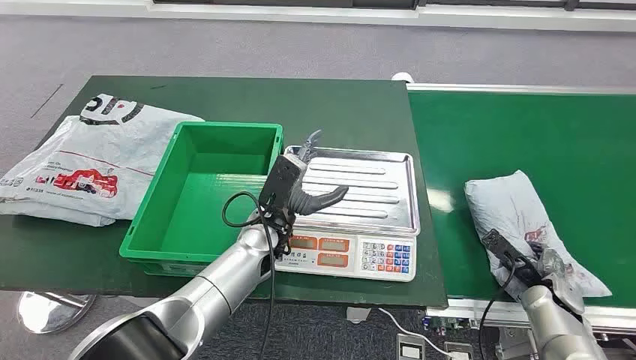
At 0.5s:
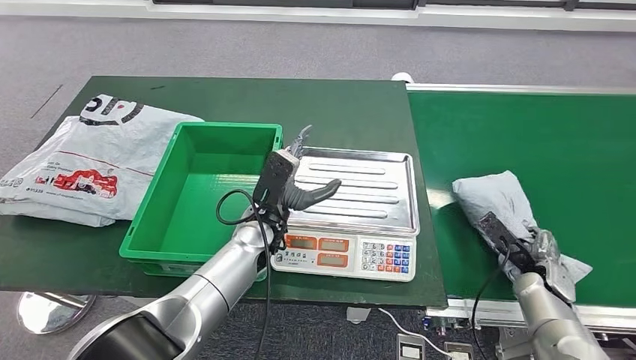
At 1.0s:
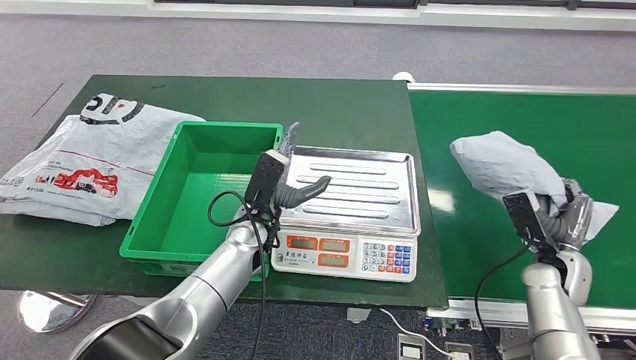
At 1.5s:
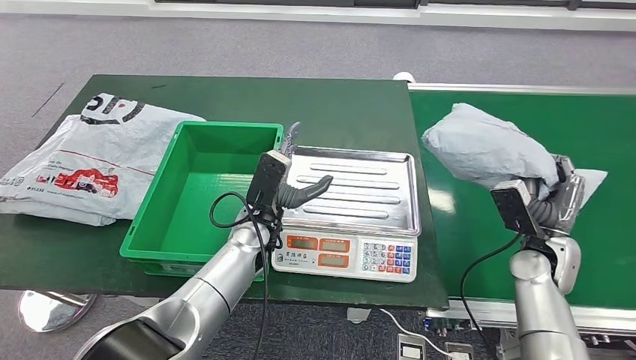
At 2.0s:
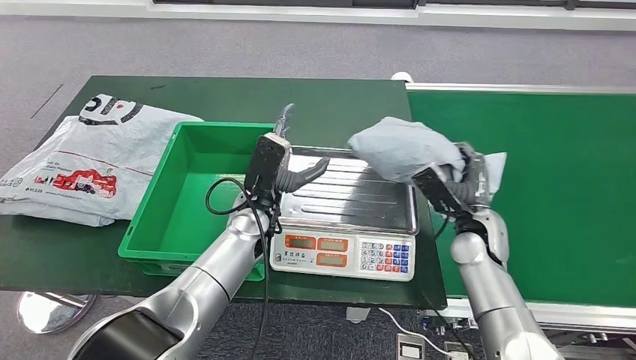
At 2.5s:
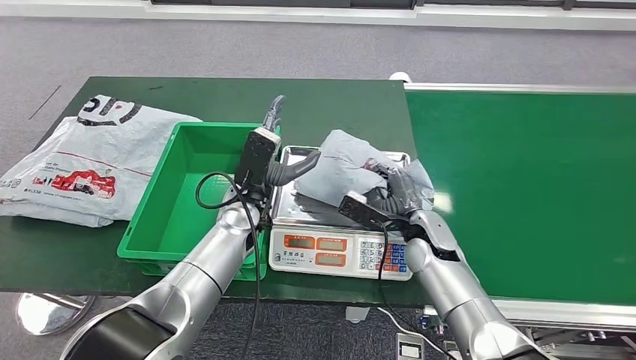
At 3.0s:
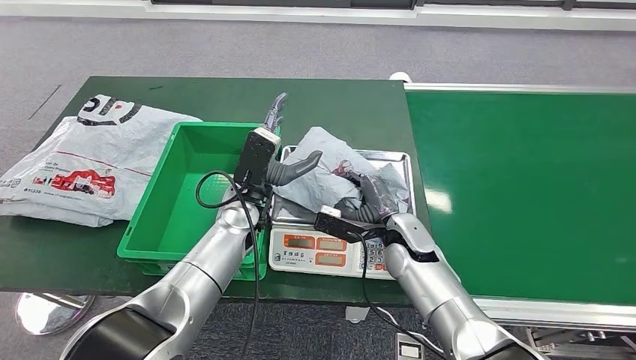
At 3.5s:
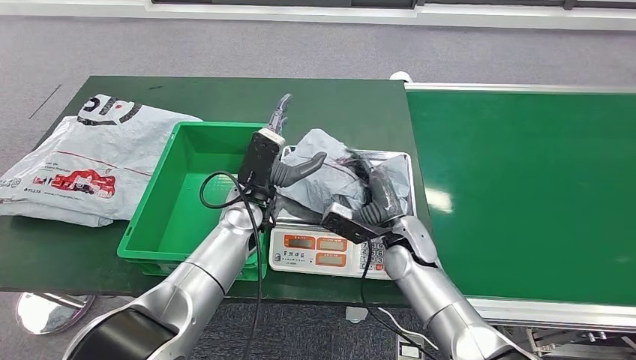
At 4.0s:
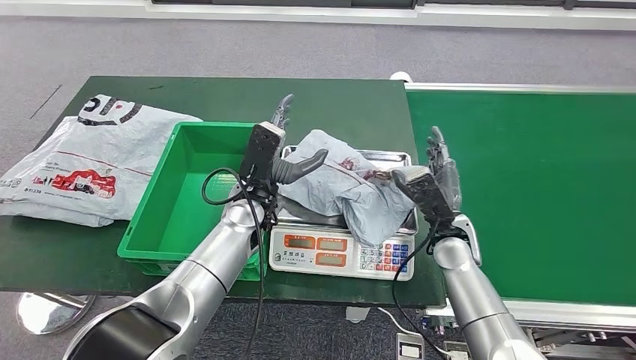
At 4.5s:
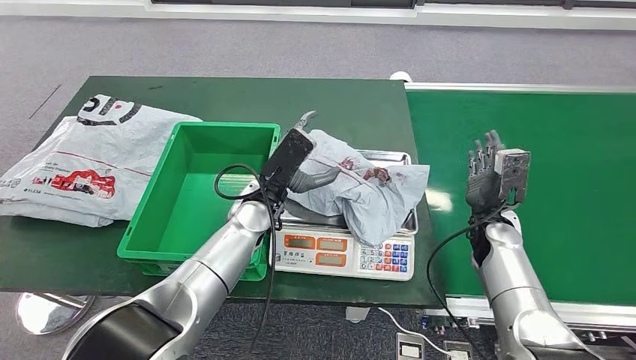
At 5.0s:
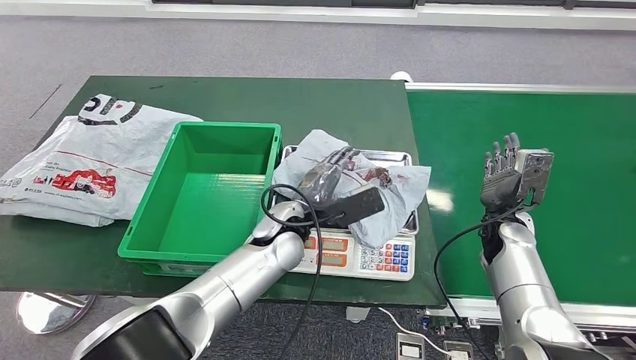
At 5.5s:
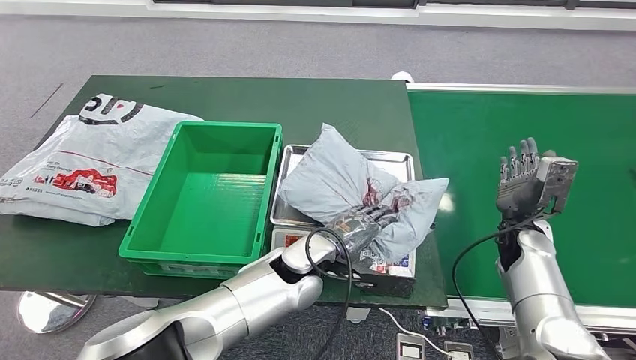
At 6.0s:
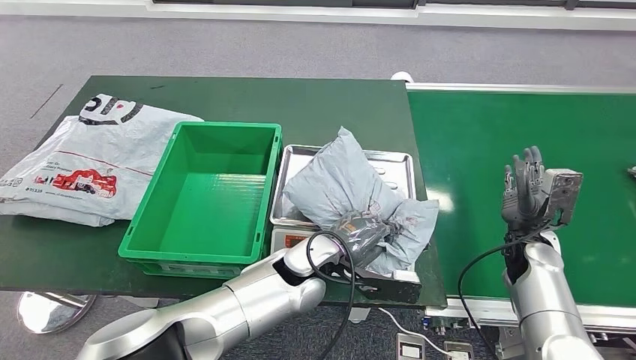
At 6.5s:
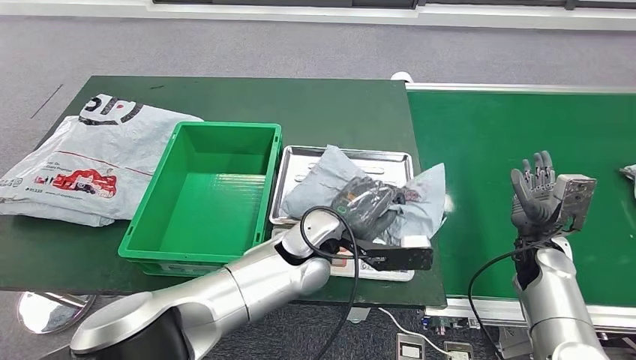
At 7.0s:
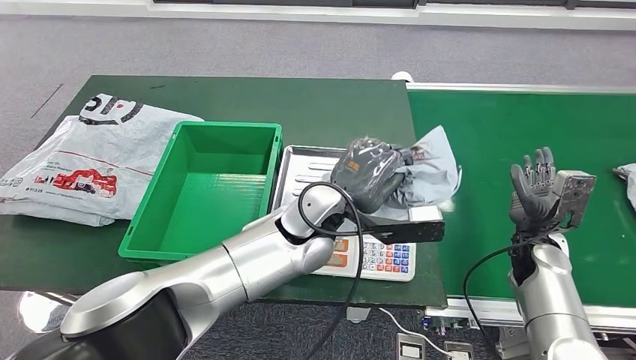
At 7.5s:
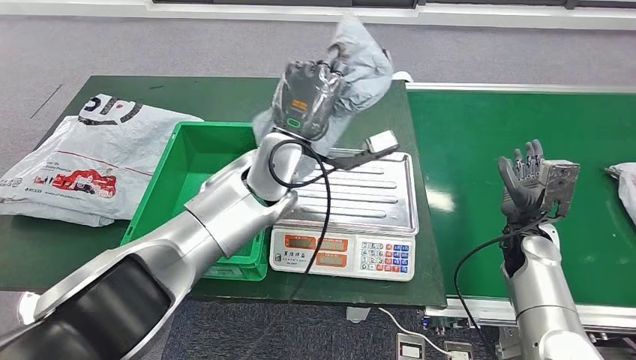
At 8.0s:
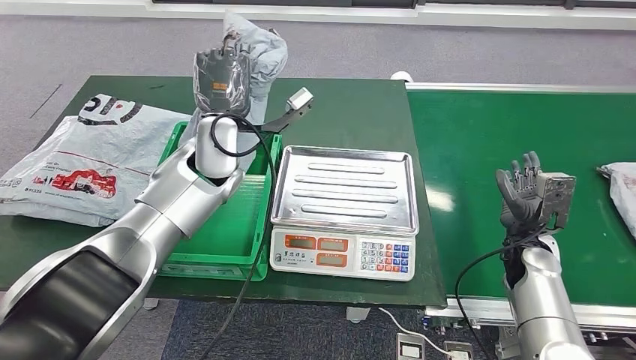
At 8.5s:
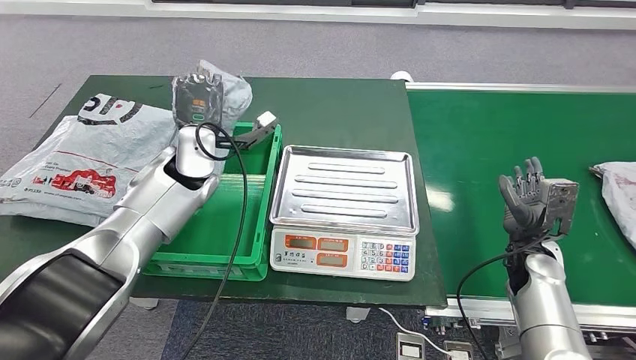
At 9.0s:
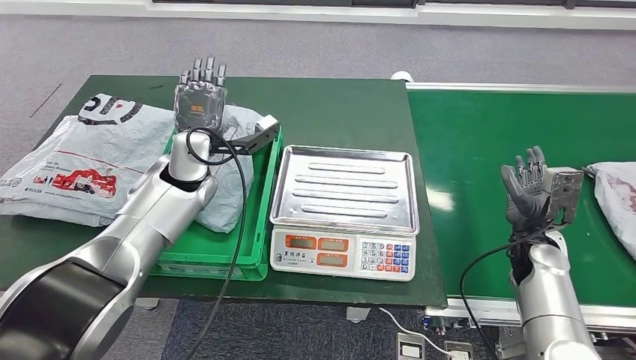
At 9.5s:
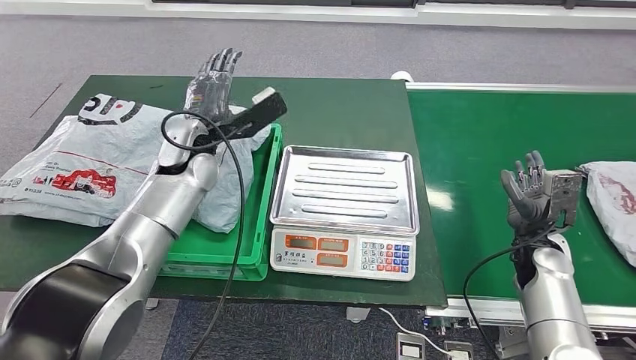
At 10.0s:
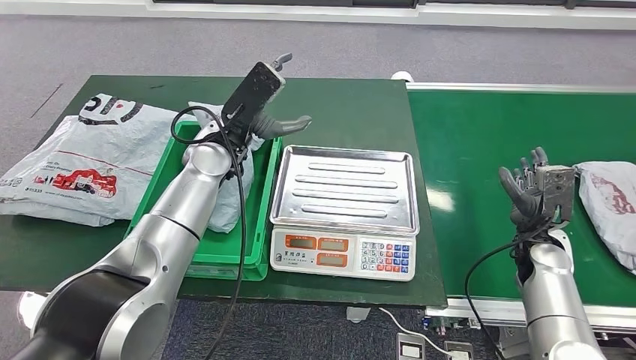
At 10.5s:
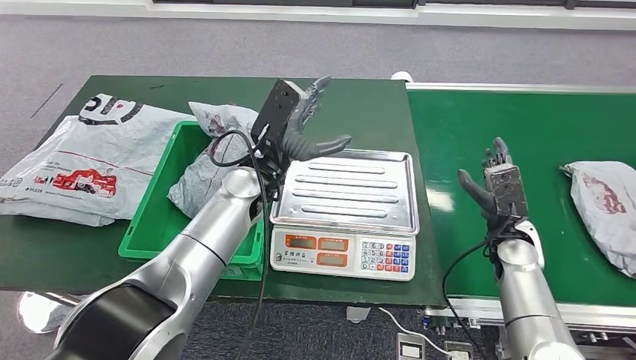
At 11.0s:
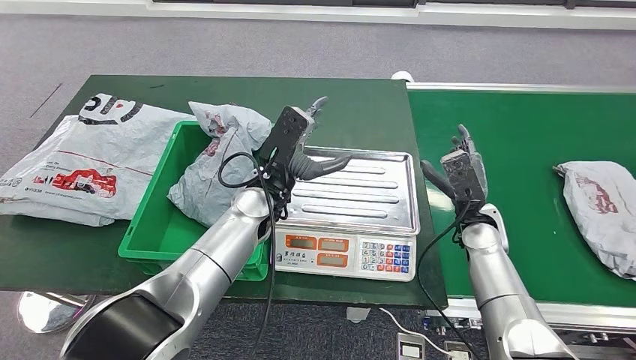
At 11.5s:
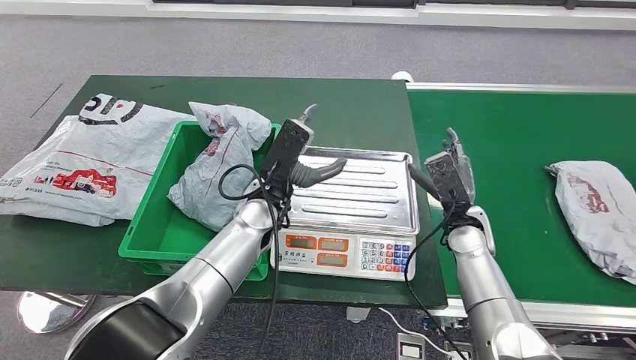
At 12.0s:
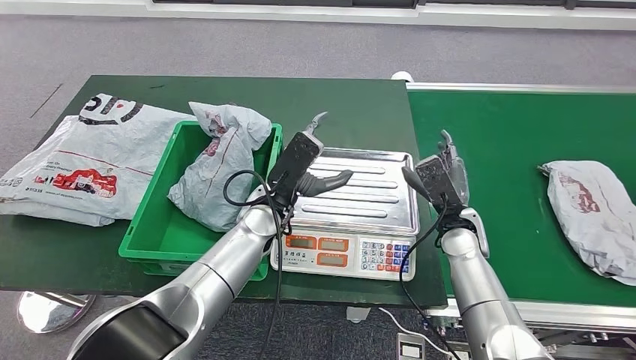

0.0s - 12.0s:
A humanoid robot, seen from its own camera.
Step, 0.0s - 1.0s: Take the parcel off the conveyor belt.
Step, 1.5s - 3.5s: Place the parcel onto the inbound machine.
Step, 4.0s - 7.5s: Pick up the parcel from the inbound machine.
Step, 8.0s - 10.0s: Put the parcel inside the courier box.
2.0s - 4.0s: The right hand moves to the left, some 5 cm.

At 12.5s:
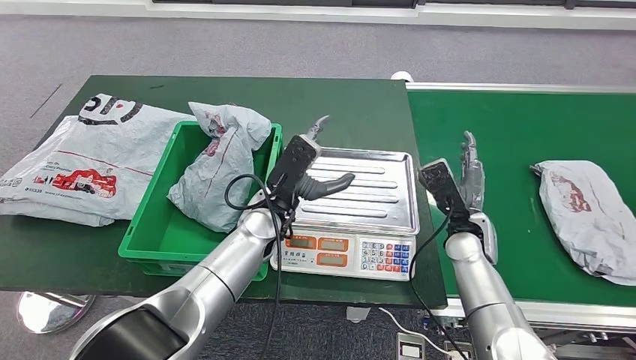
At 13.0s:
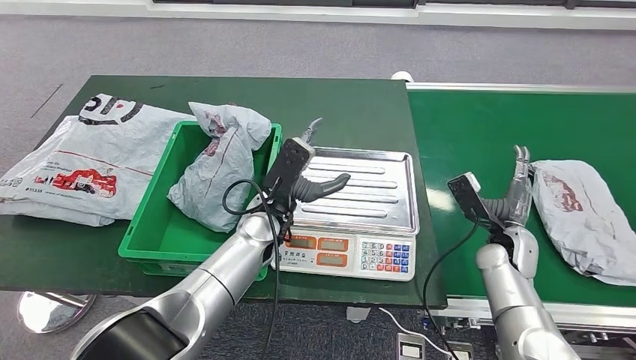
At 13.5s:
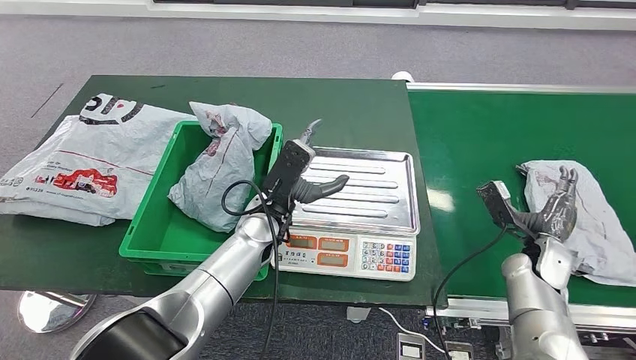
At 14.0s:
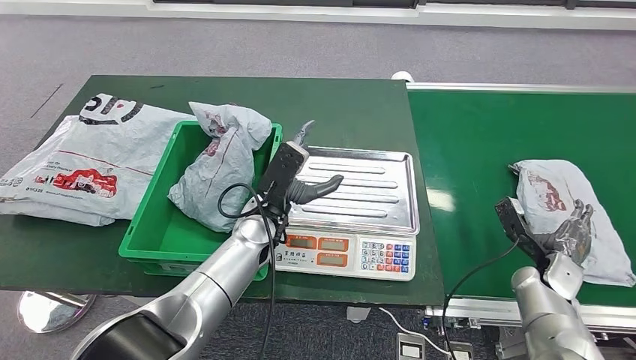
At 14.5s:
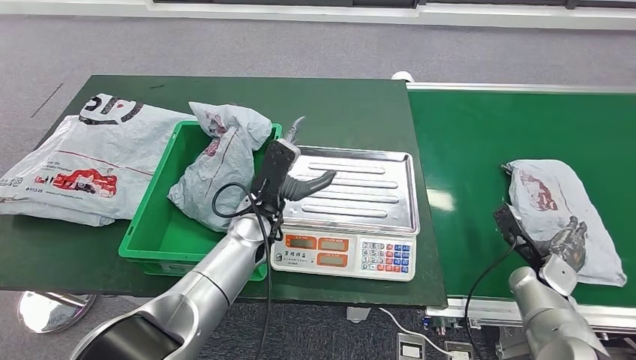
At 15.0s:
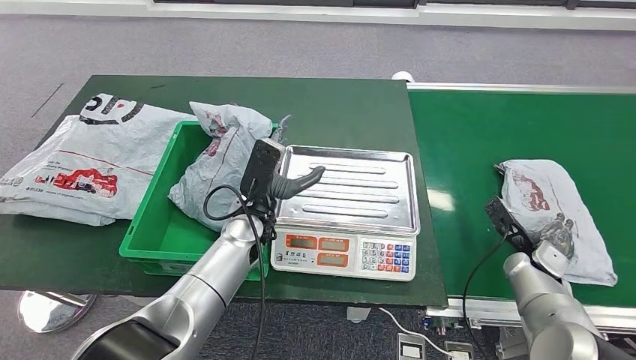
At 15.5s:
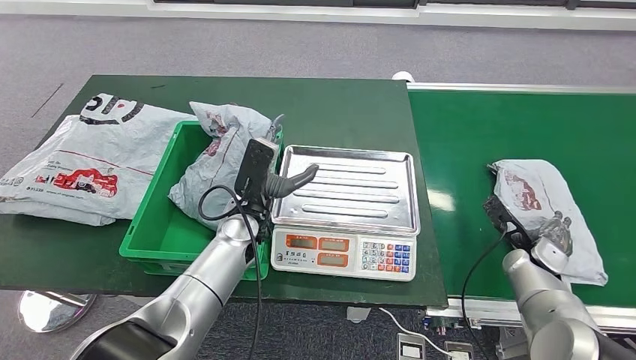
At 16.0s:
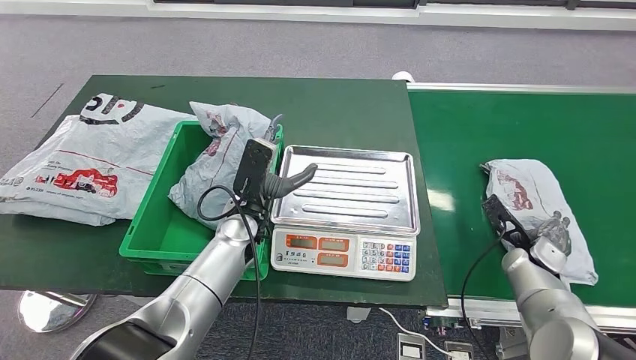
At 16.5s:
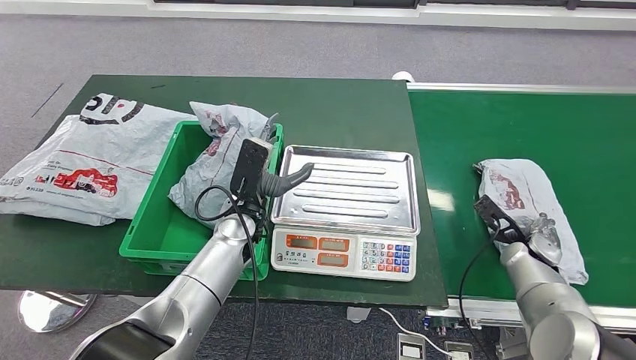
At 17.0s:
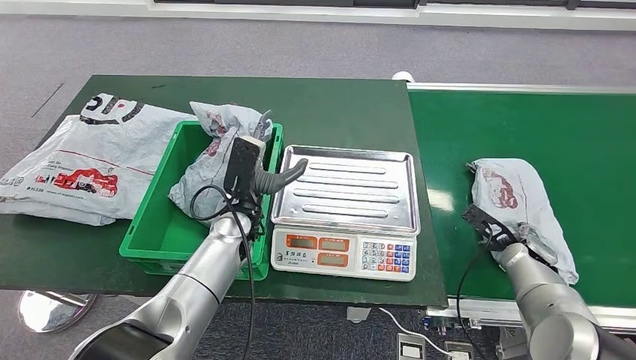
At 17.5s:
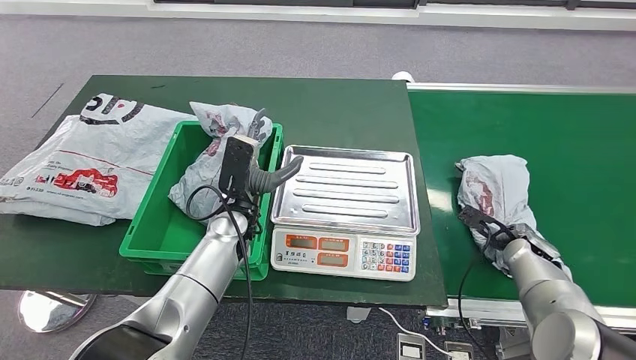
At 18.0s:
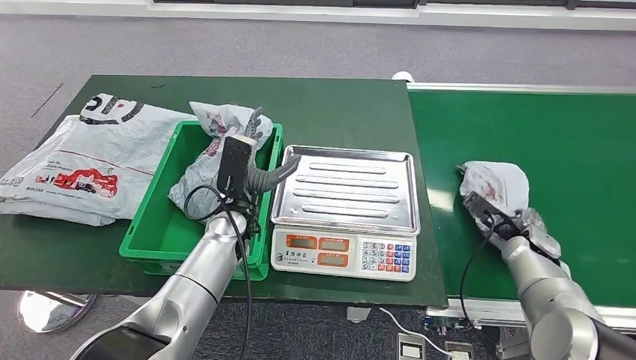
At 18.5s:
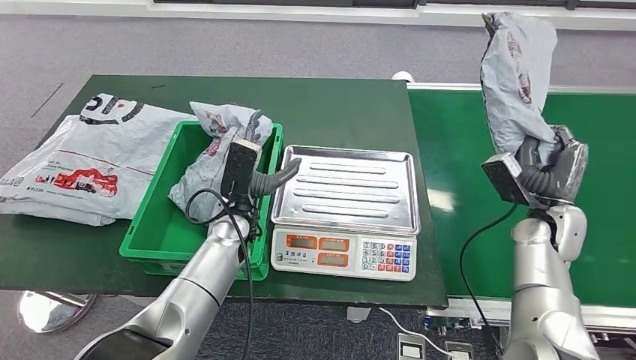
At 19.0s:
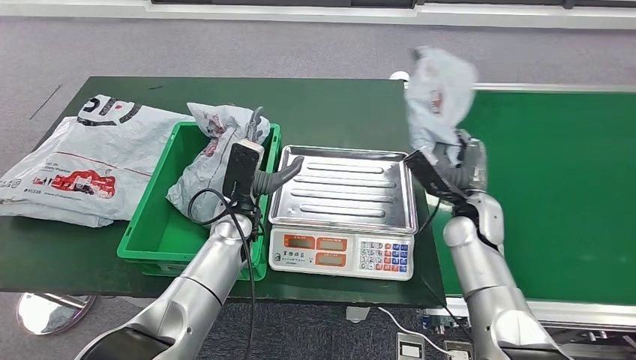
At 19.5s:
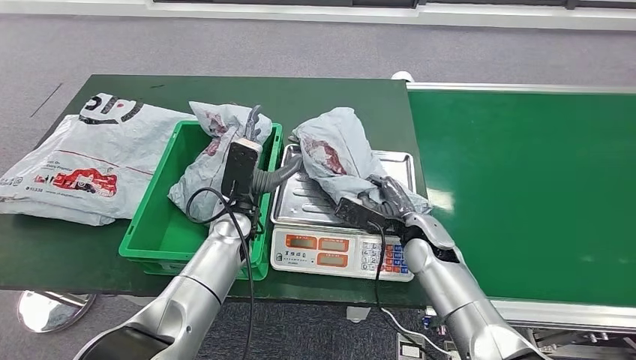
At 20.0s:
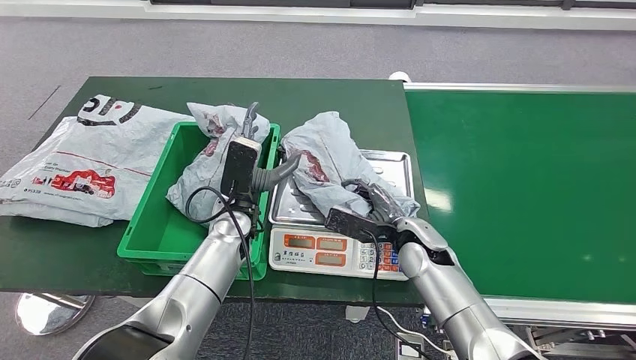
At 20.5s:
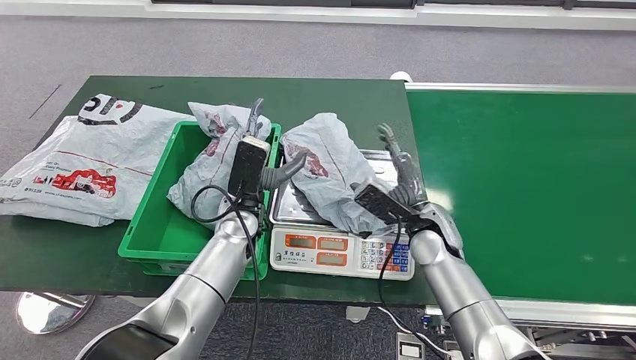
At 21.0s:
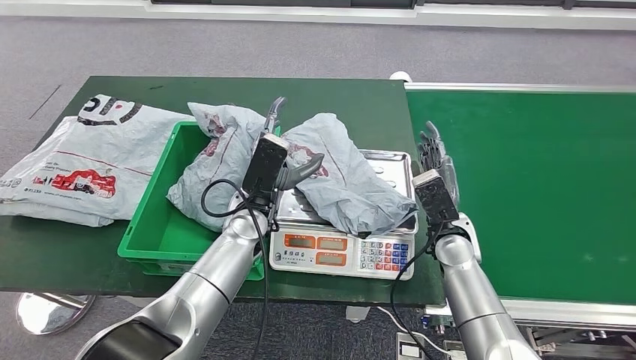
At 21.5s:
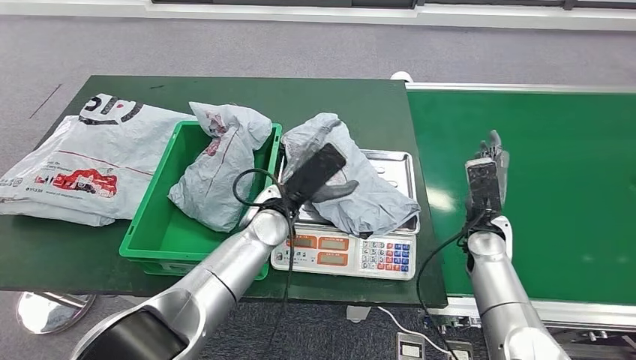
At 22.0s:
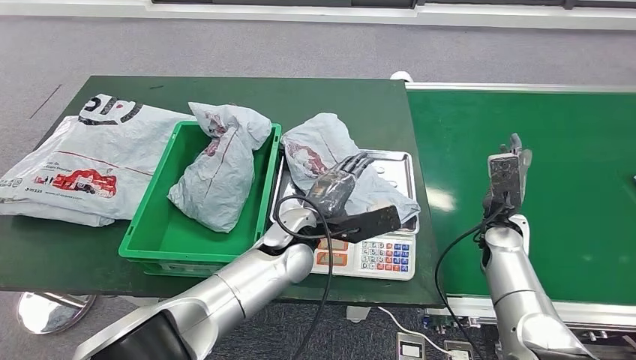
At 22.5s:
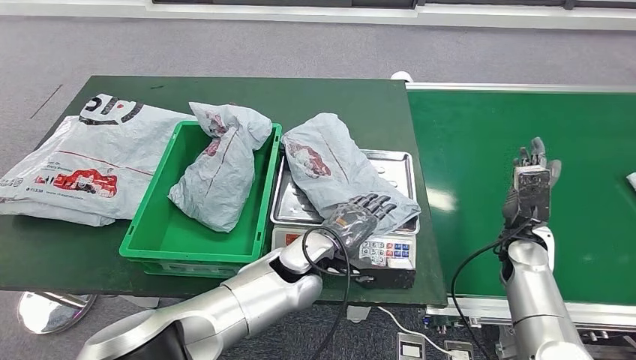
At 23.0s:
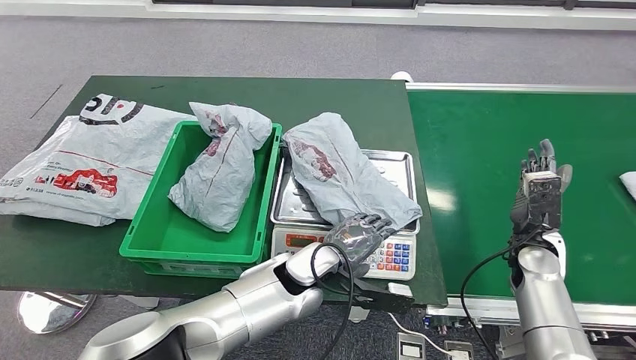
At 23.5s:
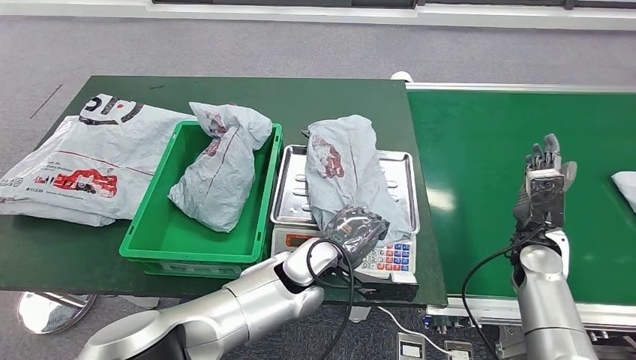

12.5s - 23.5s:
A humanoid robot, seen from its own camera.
Step, 17.5s - 18.5s: Pick up the parcel from the conveyor belt.
Step, 19.0s - 20.5s: Place the parcel onto the inbound machine.
12.5s - 14.5s: The right hand heads to the right and downward, covering some 15 cm.
14.5s - 16.0s: The hands make only small movements.
